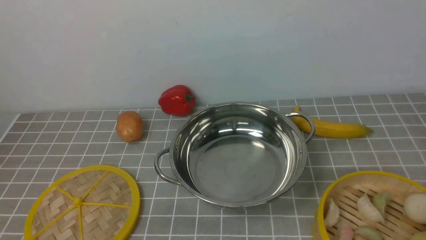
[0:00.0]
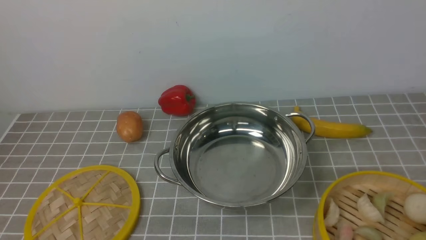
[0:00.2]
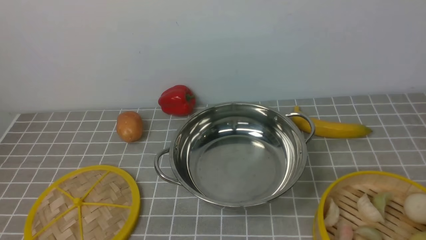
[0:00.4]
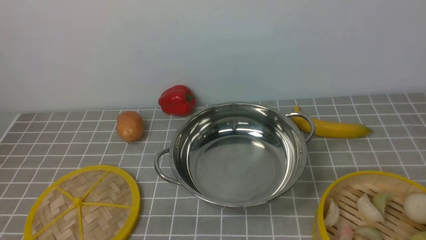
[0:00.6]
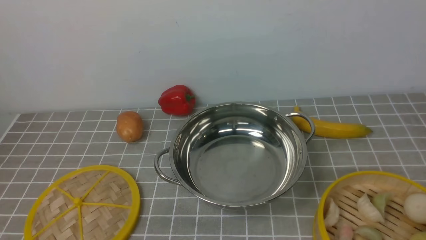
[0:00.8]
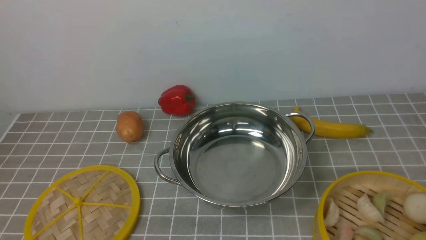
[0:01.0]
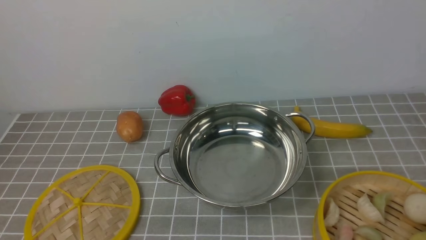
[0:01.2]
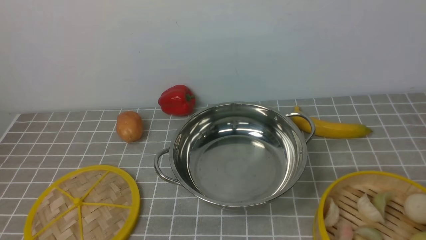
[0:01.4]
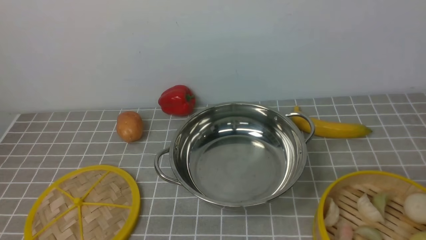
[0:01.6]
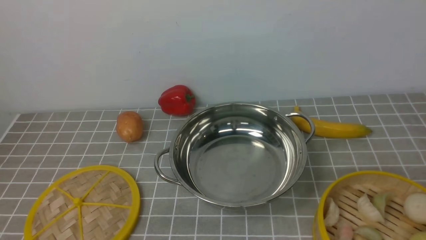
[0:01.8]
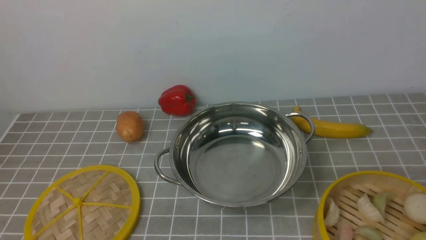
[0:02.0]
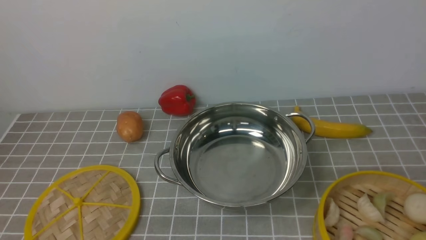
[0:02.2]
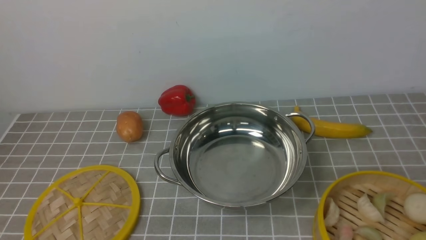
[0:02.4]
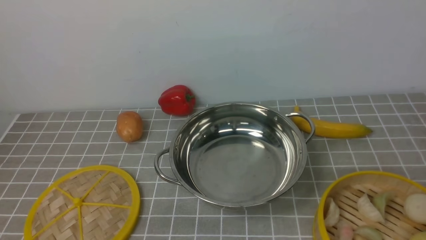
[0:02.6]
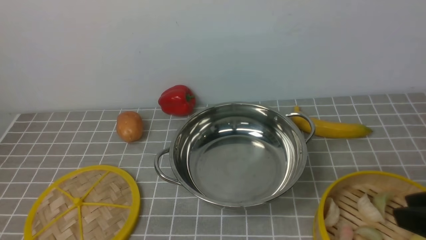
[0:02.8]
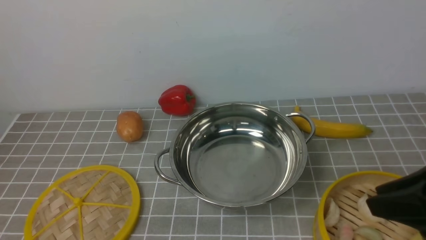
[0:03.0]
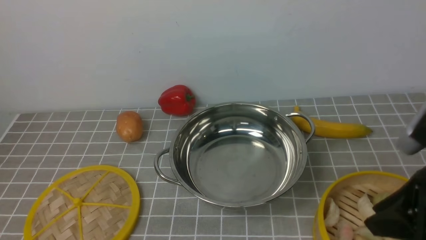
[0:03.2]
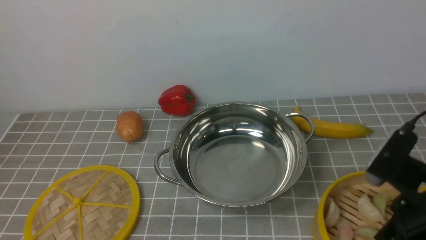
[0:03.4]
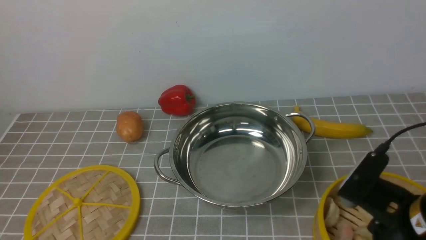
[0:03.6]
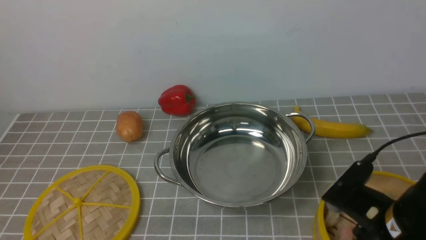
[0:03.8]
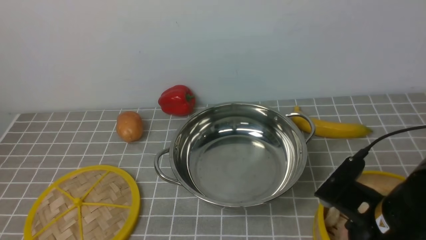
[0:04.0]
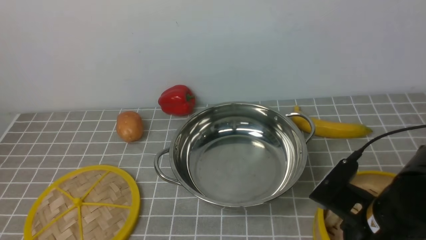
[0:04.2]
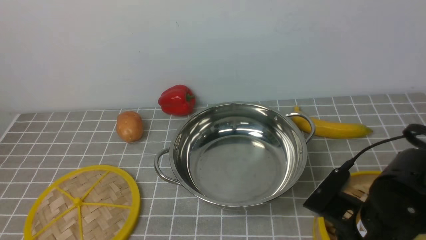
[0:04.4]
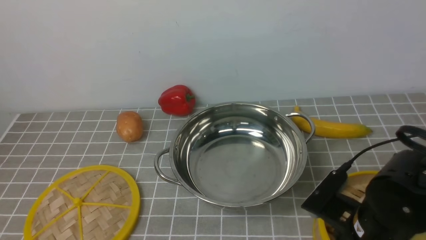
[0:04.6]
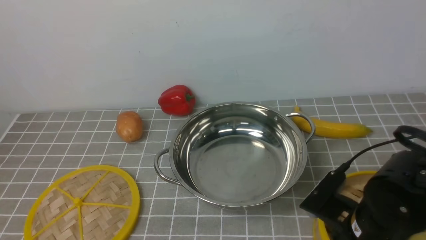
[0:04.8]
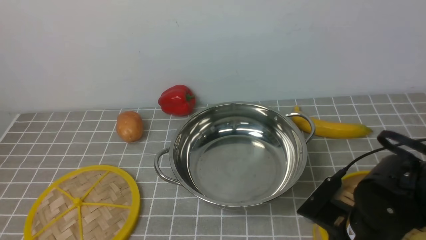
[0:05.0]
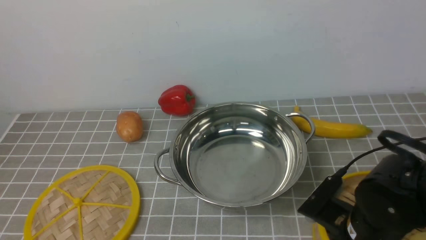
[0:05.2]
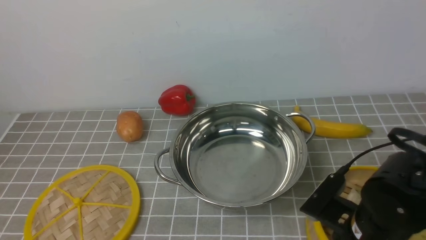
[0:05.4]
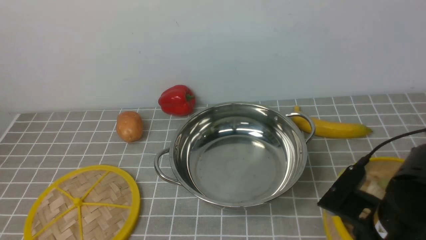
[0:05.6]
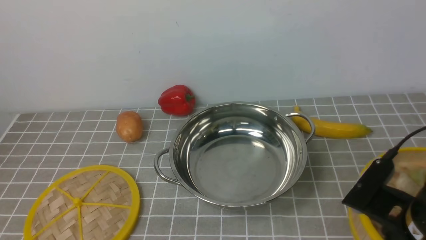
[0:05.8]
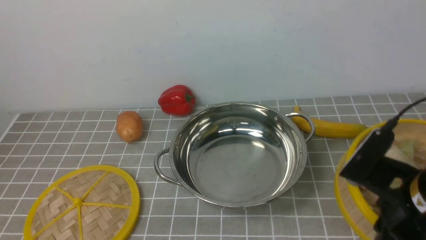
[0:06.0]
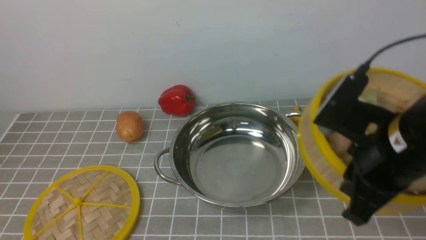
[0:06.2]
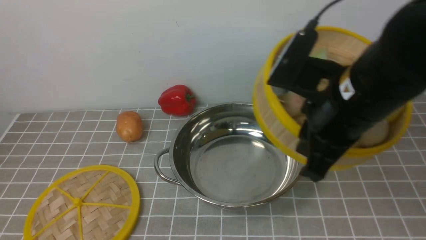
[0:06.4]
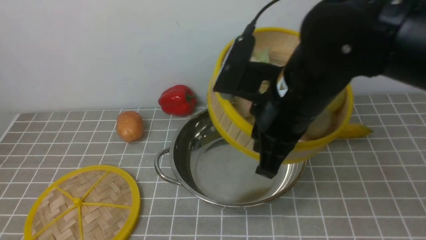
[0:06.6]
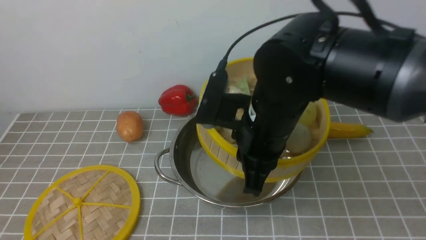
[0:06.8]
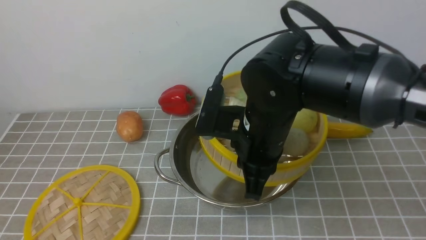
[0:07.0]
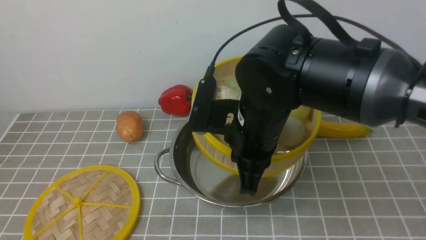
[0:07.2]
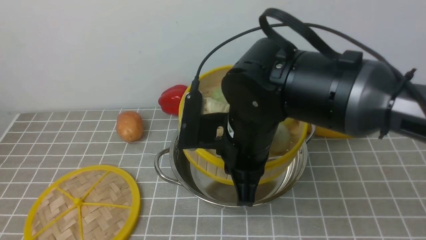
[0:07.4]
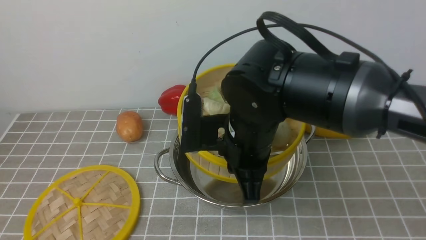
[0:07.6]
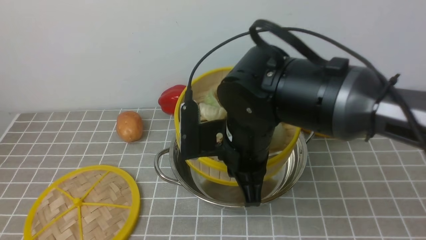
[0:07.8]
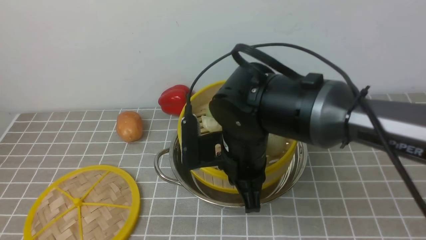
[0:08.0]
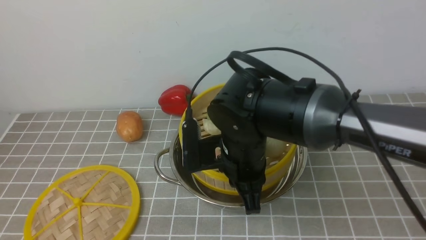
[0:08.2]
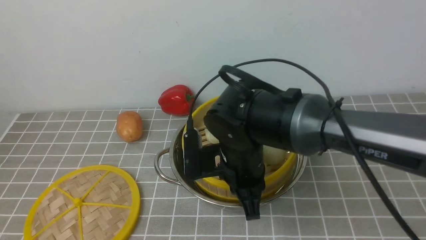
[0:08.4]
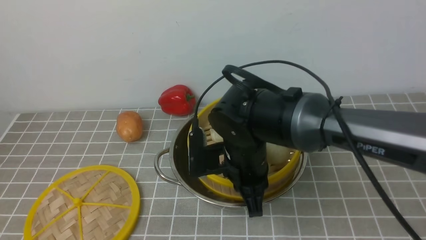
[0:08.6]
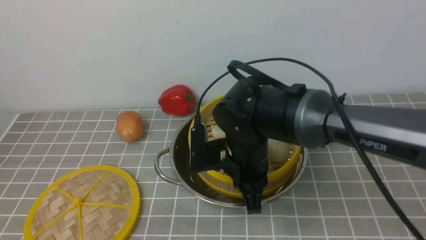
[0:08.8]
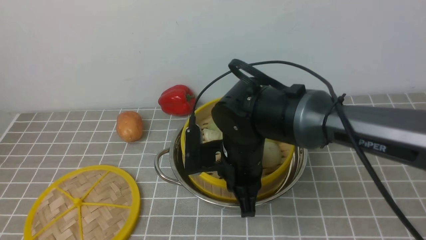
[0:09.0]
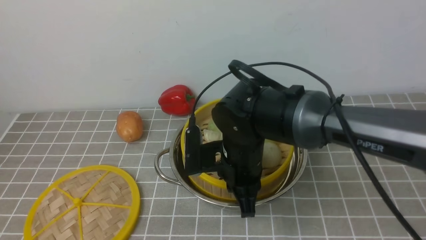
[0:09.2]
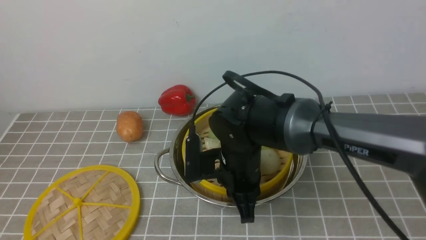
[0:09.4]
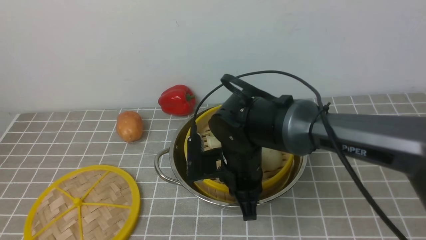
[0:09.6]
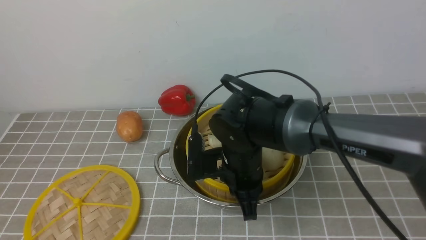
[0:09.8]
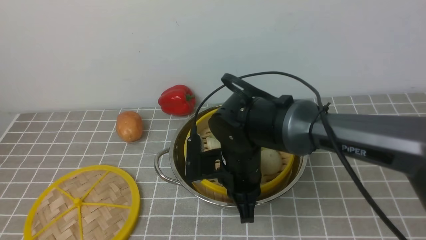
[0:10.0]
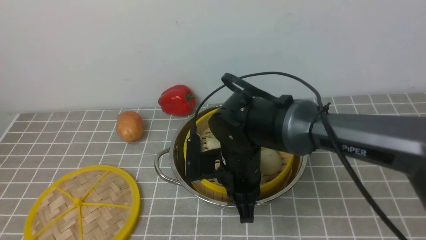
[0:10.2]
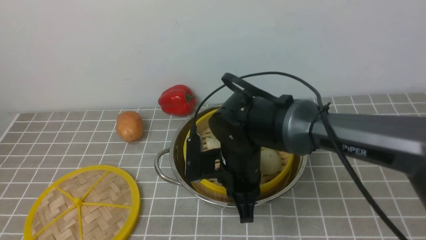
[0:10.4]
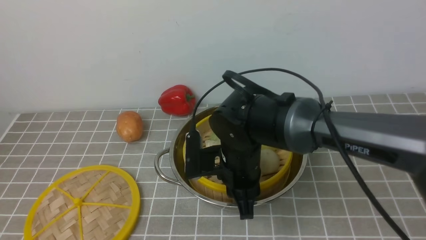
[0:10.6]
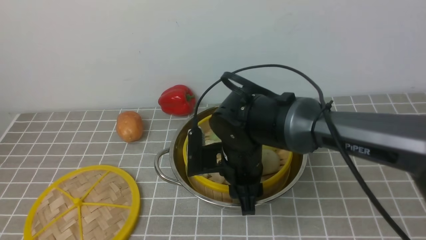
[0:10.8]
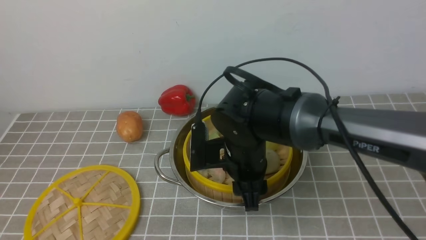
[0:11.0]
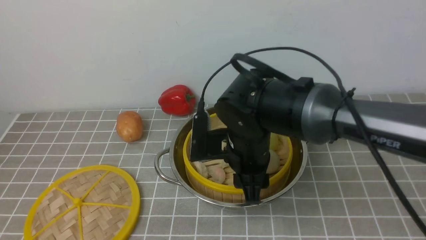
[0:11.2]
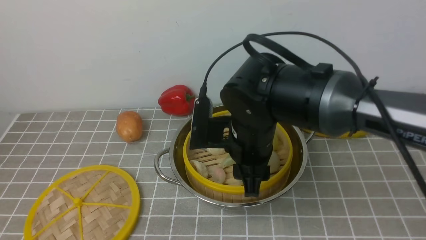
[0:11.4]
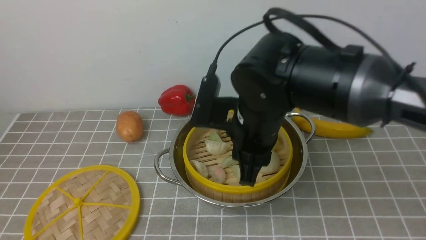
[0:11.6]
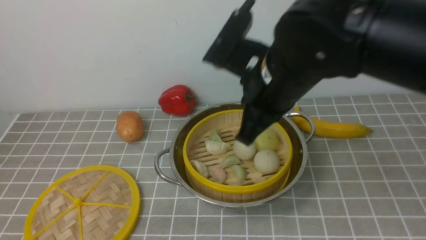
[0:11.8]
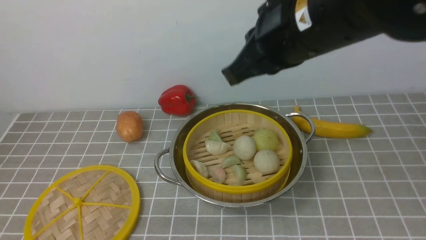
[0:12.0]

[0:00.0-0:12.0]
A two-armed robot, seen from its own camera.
Task of the whole recording: place the steamer in the pot on the grey tablecloth, and put the lid on the steamer.
Step, 0:00.0 to 0:05.4: use the right arm to lift the steamer closest to it.
Step, 0:05.6 to 0:11.0: use the right arm to put the steamer into the iron steamer pot in the middle.
0:01.6 to 0:03.0: The right gripper is displaced forward, to the left and upward by some 10 cm.
0:03.0 to 0:04.4: The right gripper heads downward and to the left, covering approximately 15 cm.
0:04.4 to 0:06.0: The right gripper goes approximately 5 cm upward, and closes.
0:06.0 to 0:07.6: The right gripper goes about 20 cm to the left and forward.
0:07.6 to 0:09.0: The right gripper goes roughly 5 cm downward.
0:09.0 to 0:10.4: The grippers stay close to where they were, moving slightly.
0:10.4 to 0:12.0: The right gripper travels upward by approximately 20 cm, and opens and closes again.

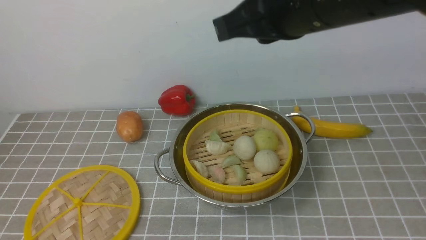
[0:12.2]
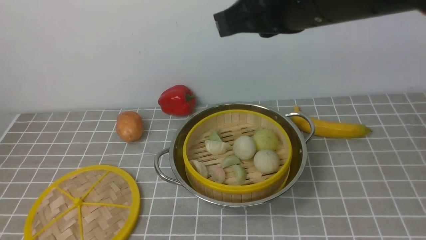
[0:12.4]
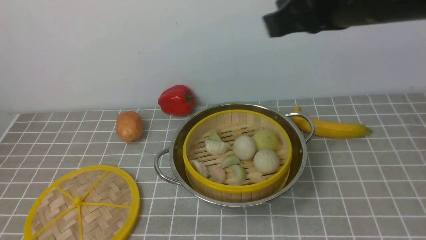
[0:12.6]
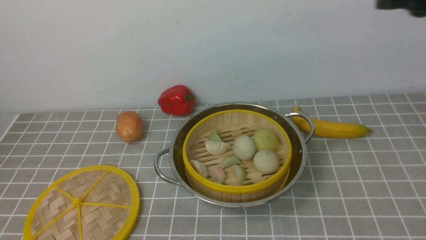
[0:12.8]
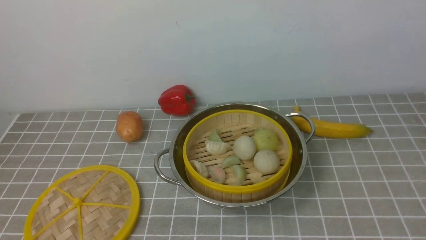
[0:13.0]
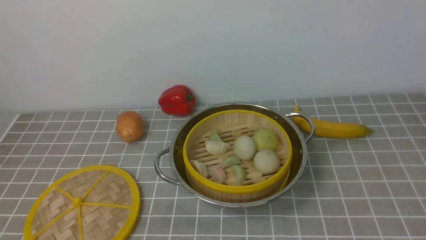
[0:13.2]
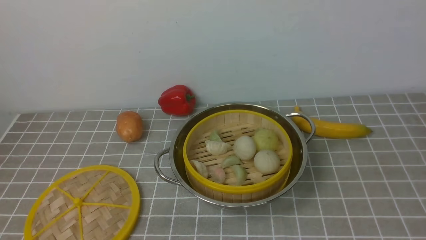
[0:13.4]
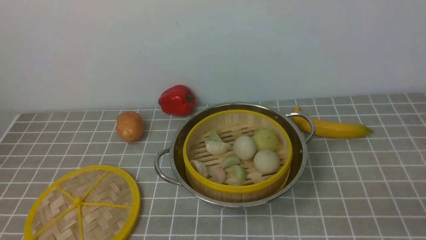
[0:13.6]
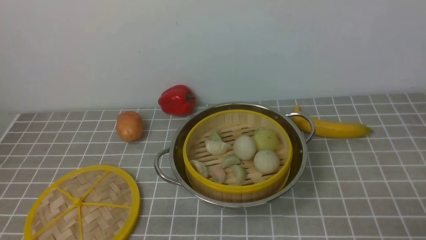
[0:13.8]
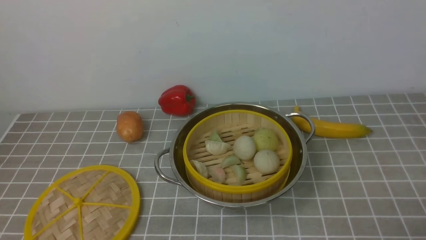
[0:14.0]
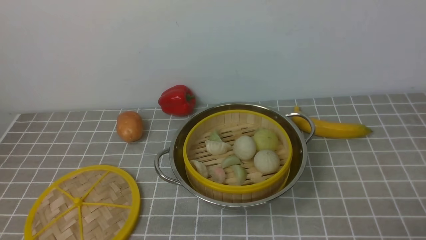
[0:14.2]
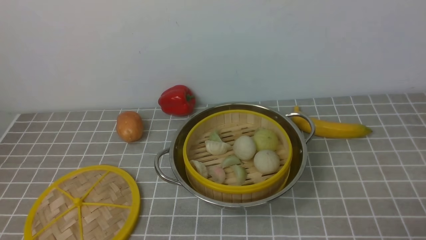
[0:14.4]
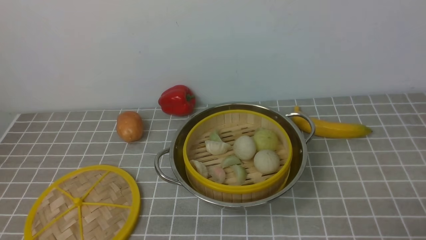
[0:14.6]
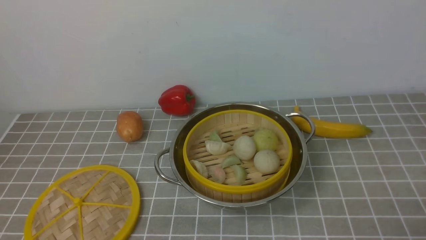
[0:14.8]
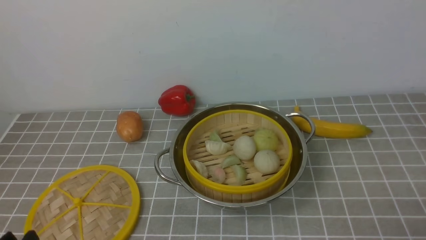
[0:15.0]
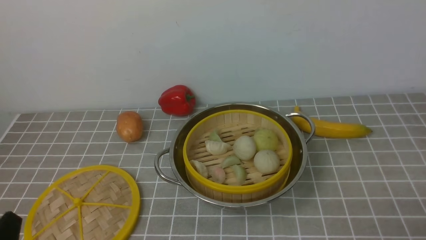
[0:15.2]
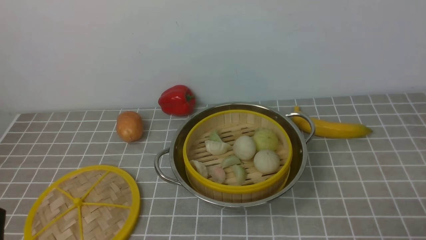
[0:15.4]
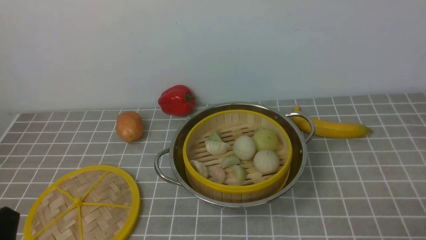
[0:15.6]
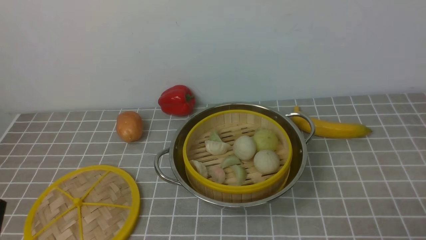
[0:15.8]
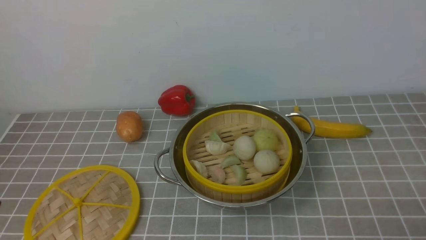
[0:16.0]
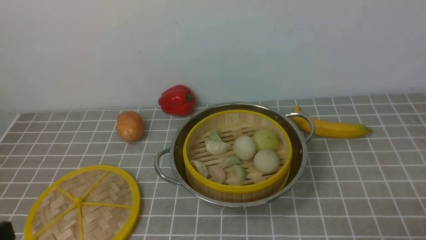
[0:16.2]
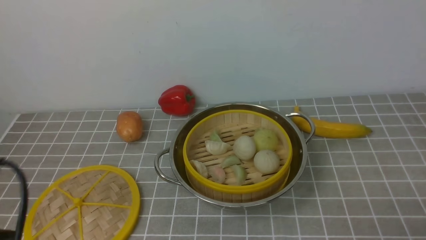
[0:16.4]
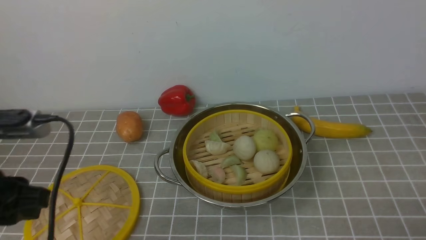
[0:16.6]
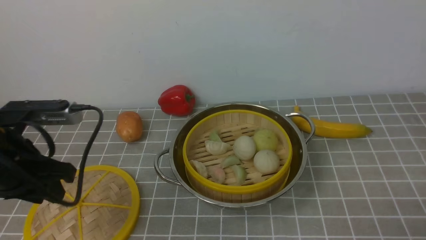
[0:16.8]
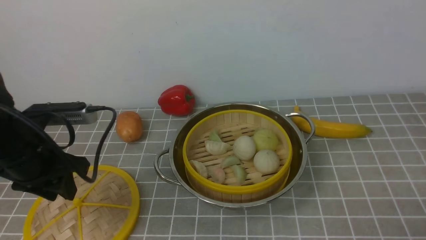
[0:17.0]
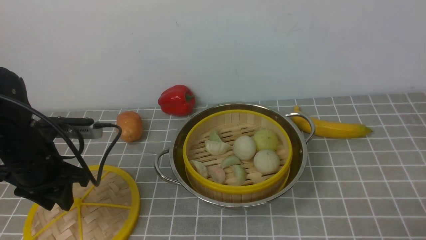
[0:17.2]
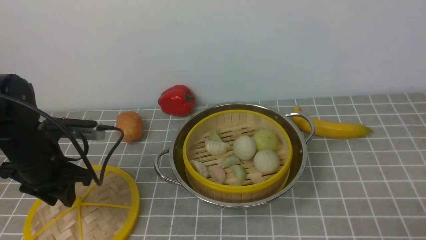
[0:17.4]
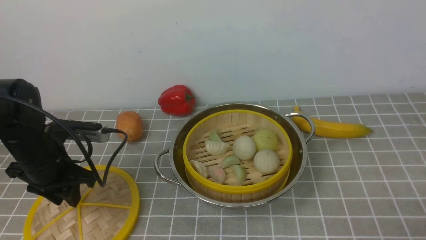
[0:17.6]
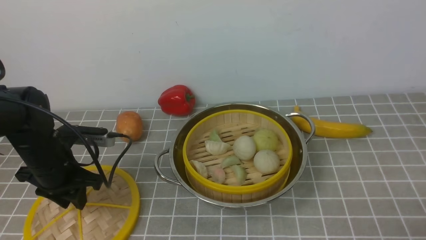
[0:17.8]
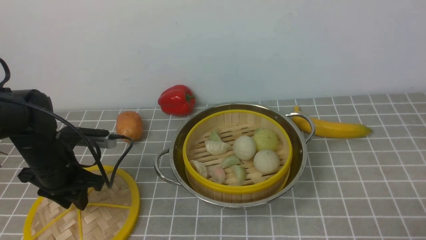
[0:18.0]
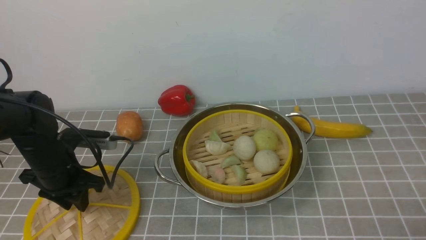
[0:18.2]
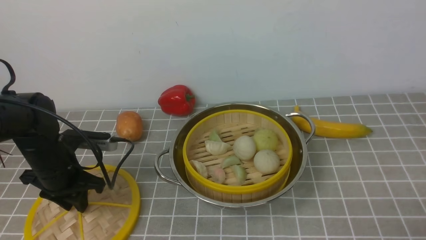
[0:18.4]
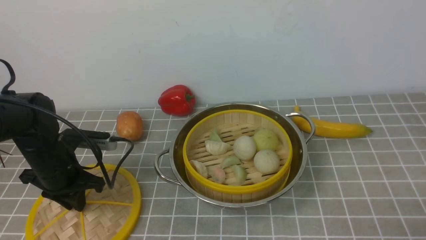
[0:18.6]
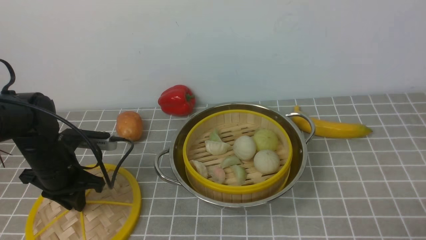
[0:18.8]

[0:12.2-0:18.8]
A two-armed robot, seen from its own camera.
Task of the whole recording: place the steamer in the pot on the grey tablecloth, and put the lid on the steamer.
0:12.2 to 0:13.8: The right gripper moves to the right, downward and backward, approximately 35 cm.
0:15.4 to 0:17.2: The left gripper goes some 25 cm forward.
0:17.2 to 0:18.8: The left gripper shifts about 10 cm downward, and closes its fingers.
